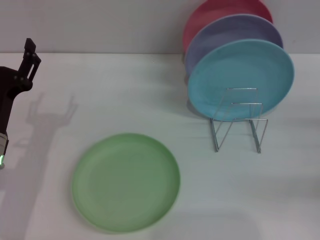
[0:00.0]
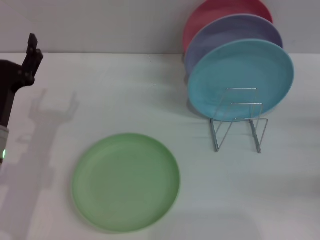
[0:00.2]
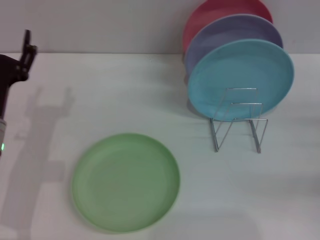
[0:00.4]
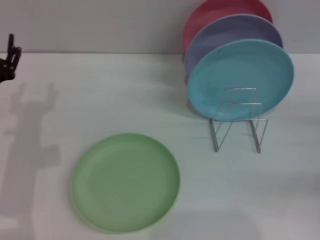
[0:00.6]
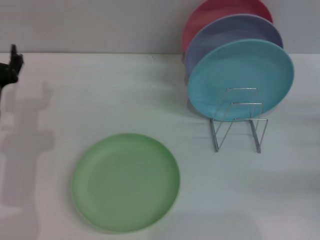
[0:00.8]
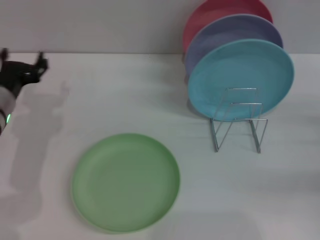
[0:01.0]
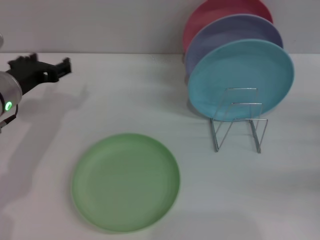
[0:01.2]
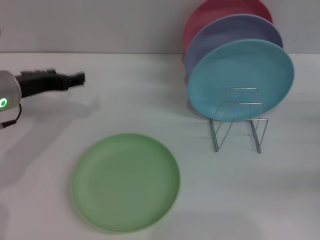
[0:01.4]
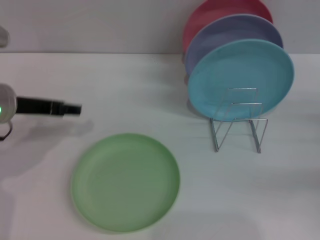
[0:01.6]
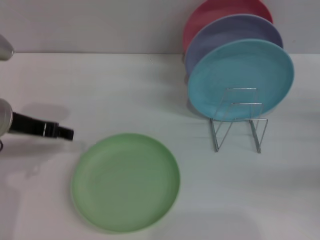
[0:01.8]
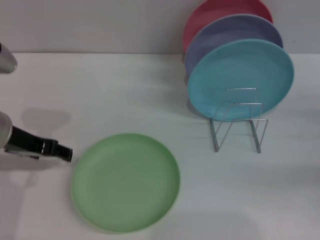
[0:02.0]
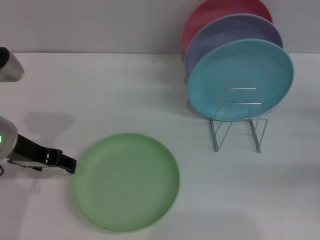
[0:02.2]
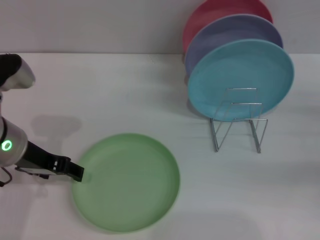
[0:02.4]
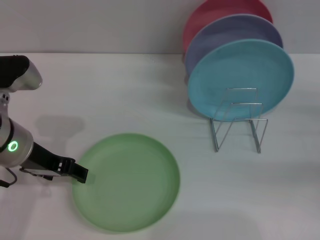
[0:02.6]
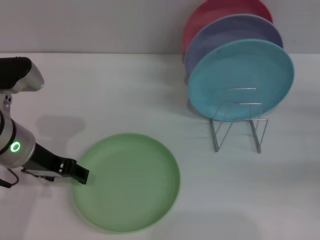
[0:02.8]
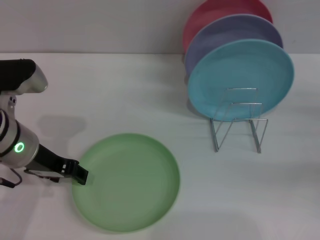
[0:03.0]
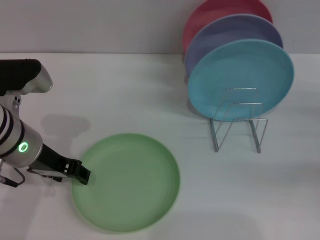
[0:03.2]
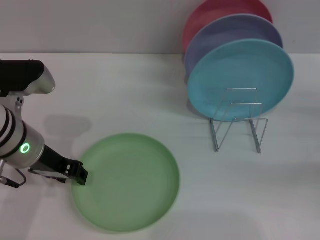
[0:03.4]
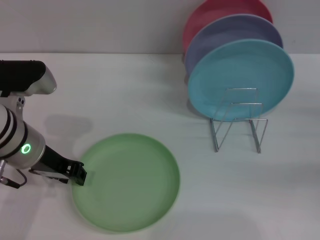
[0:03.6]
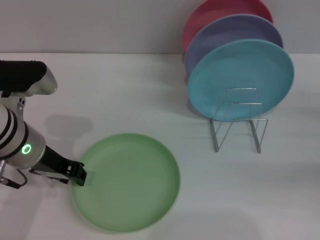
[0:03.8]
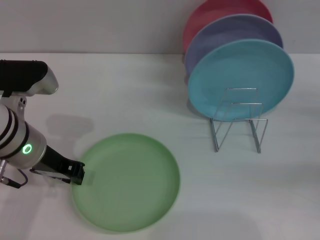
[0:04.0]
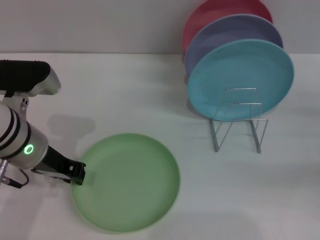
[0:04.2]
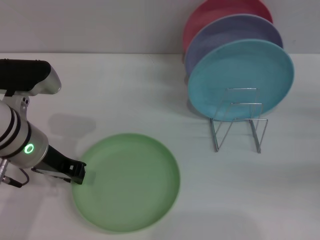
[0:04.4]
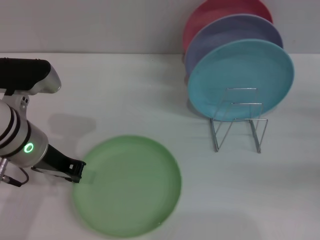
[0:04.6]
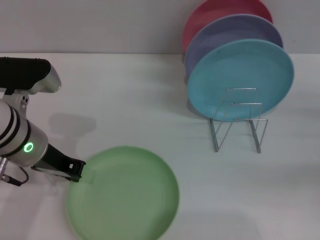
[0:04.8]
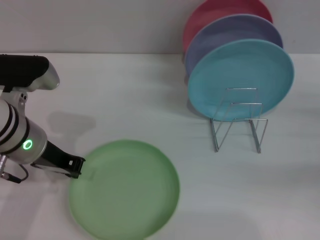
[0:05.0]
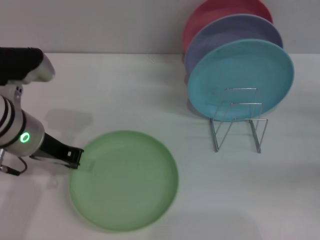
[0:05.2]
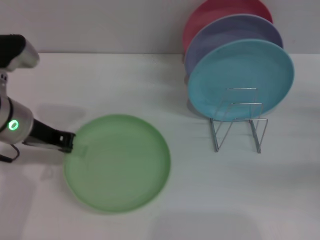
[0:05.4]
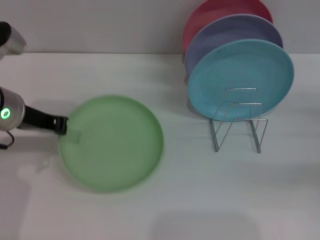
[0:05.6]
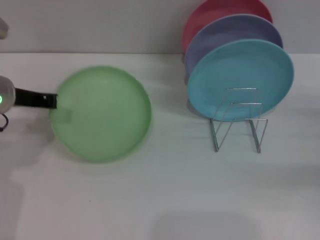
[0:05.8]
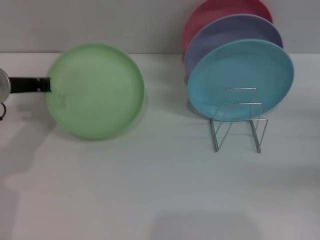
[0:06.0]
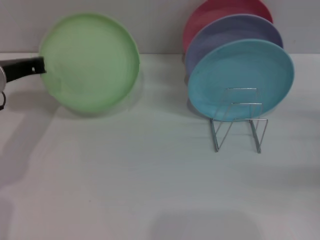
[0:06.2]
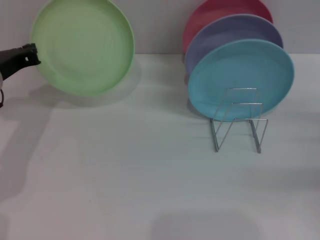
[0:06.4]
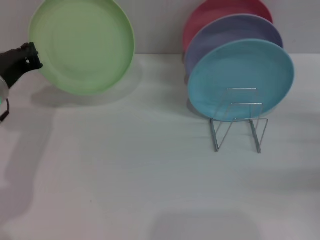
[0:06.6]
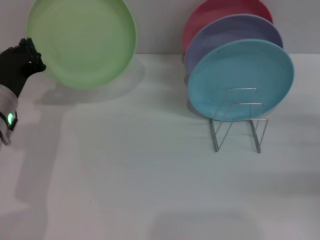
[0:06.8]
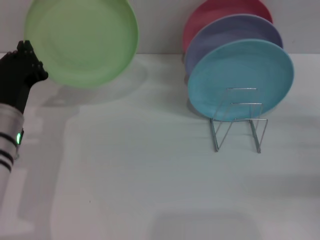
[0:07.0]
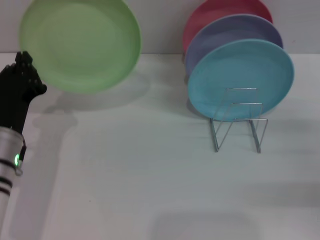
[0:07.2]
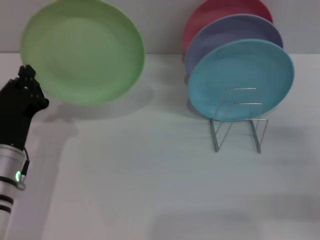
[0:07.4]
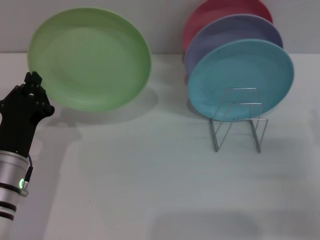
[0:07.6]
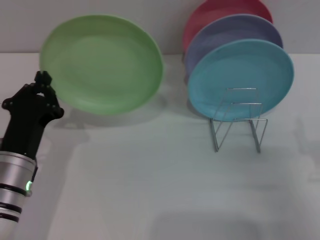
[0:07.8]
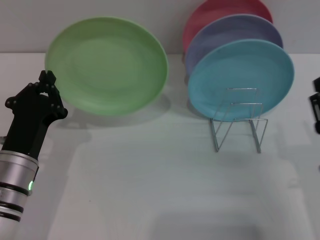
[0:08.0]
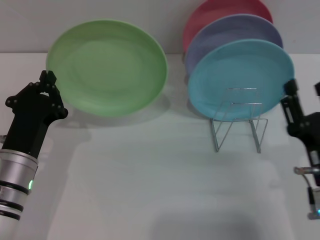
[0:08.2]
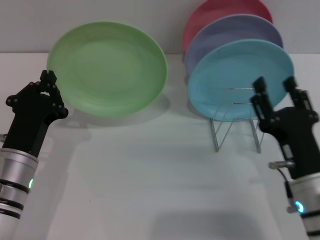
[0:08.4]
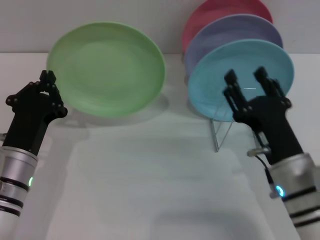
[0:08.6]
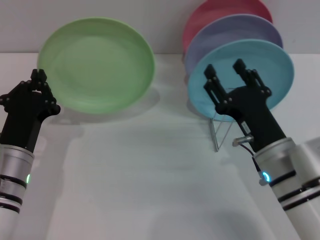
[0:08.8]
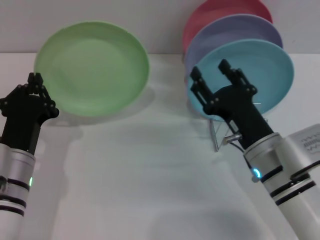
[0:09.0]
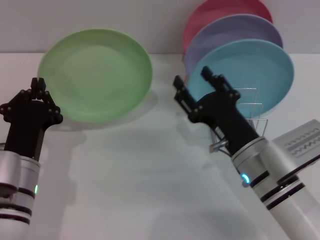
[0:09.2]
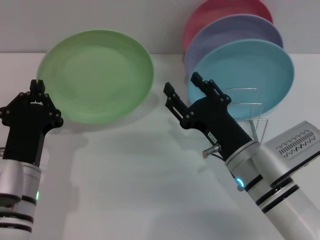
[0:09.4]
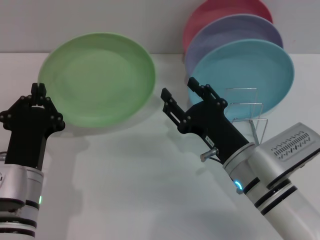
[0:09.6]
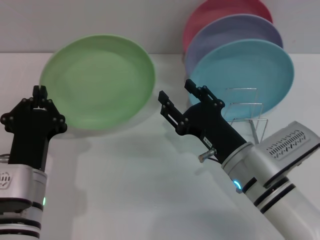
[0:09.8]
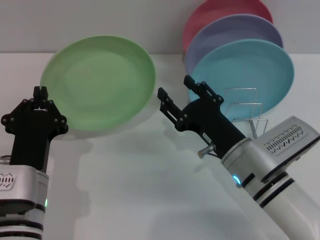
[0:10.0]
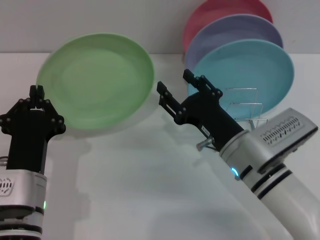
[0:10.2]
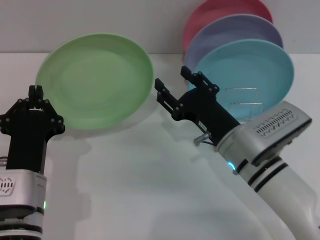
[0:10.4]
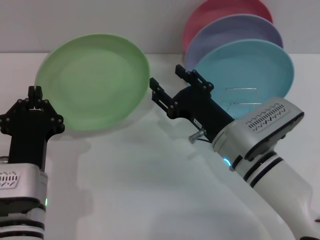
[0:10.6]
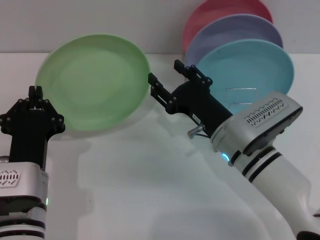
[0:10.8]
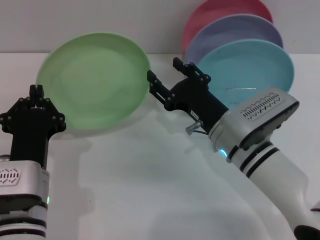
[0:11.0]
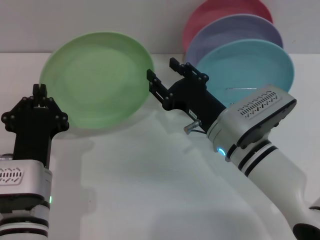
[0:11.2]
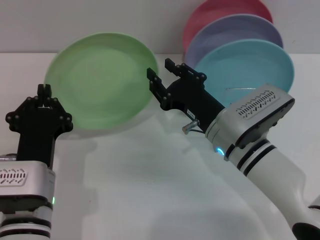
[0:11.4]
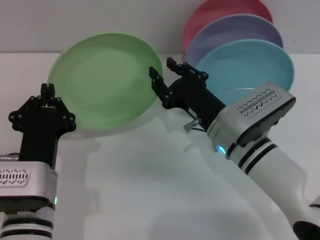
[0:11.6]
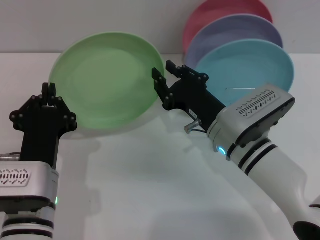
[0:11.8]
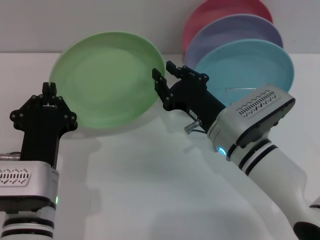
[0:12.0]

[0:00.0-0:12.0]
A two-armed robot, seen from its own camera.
Task of the whole recording: Grip the plate with one hand, pass it to the other, then set it on the shelf.
Step, 0:00.0 to 0:06.2: Pick up the plate with the left gripper.
0:00.0 to 0:01.6: The left gripper is displaced upward and forward by approximately 10 cm.
0:01.6 to 0:03.0: The left gripper changes place by roughly 5 cm.
0:03.0 to 0:04.4: The left gripper closes its fingers.
0:04.4 to 0:06.0: The left gripper is displaced to the left and forward by roughly 10 cm.
0:06.0 to 0:07.6: The left gripper moves backward and downward, some 15 cm, while the right gripper shifts about 10 cm to the left and backward.
0:07.6 to 0:09.0: The right gripper goes approximately 15 cm to the left.
0:09.0 to 0:10.4: The left gripper moves about 5 cm.
0:10.4 to 0:12.0: The right gripper closes.

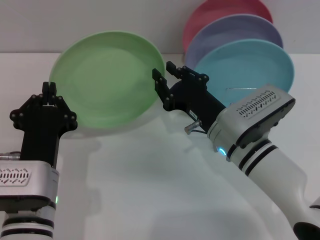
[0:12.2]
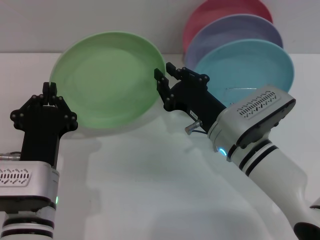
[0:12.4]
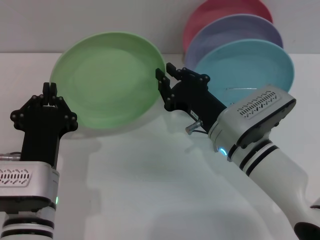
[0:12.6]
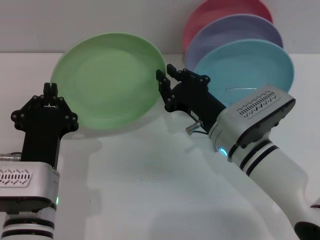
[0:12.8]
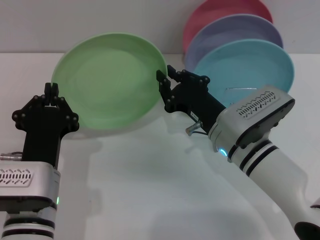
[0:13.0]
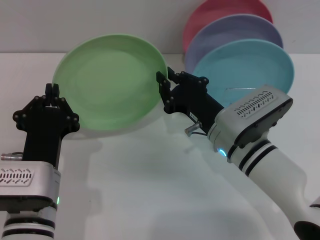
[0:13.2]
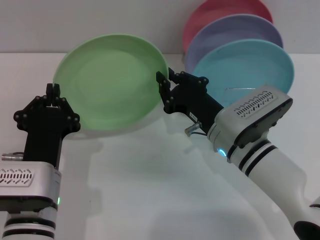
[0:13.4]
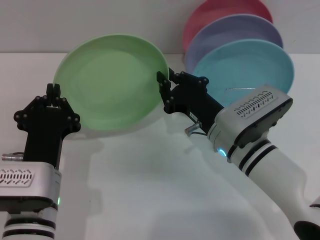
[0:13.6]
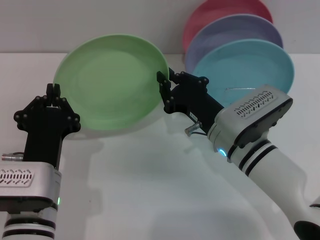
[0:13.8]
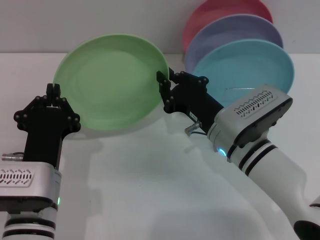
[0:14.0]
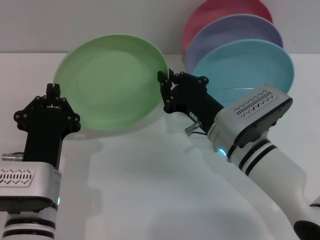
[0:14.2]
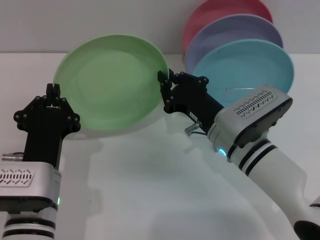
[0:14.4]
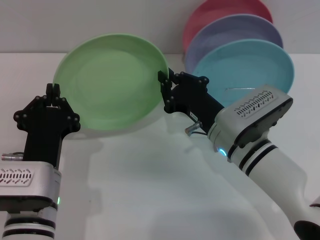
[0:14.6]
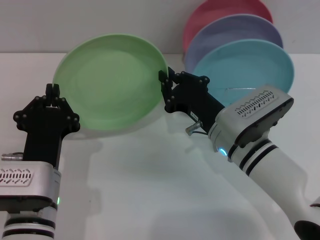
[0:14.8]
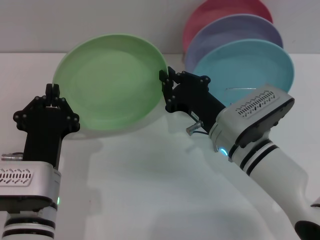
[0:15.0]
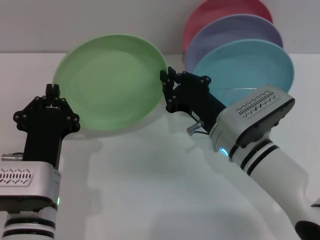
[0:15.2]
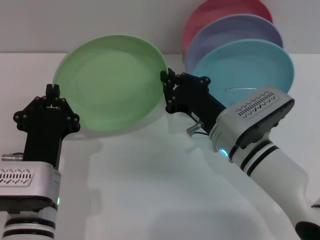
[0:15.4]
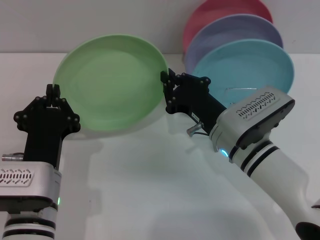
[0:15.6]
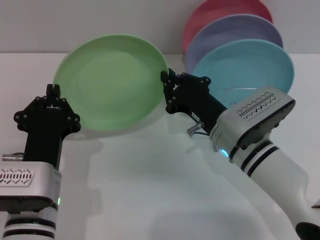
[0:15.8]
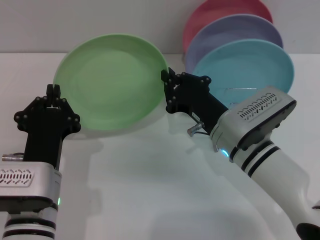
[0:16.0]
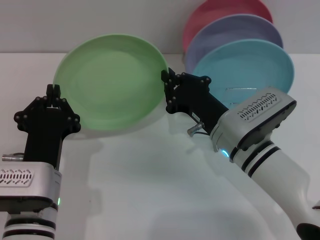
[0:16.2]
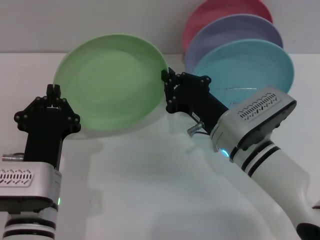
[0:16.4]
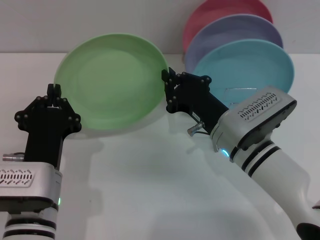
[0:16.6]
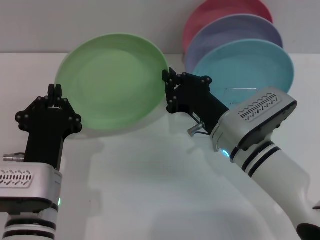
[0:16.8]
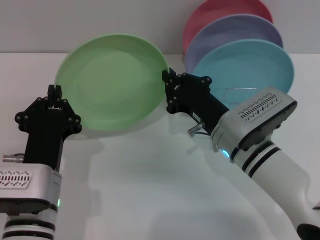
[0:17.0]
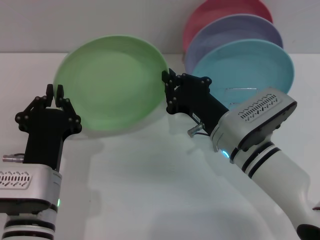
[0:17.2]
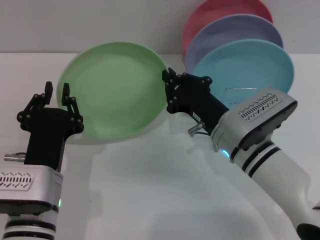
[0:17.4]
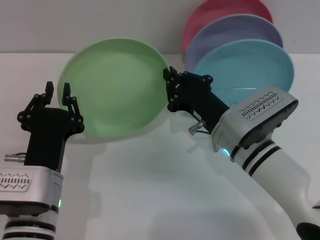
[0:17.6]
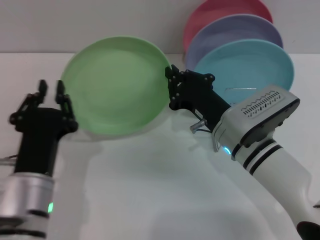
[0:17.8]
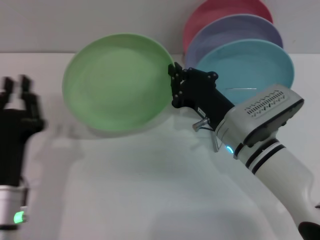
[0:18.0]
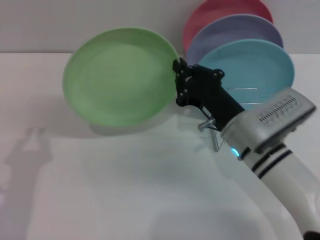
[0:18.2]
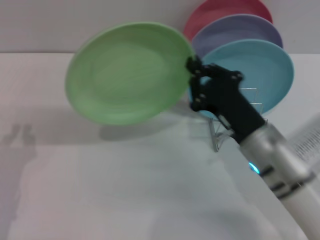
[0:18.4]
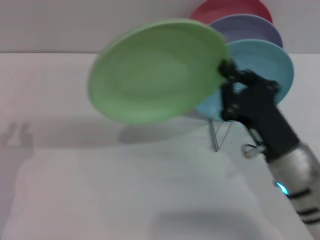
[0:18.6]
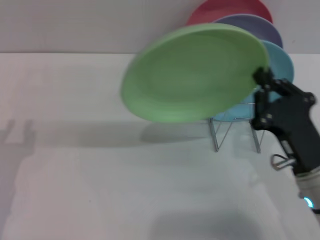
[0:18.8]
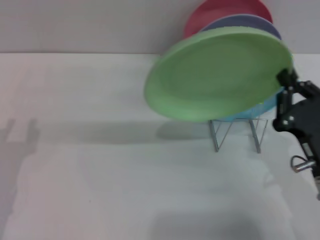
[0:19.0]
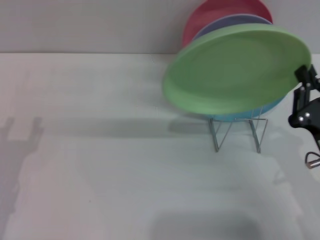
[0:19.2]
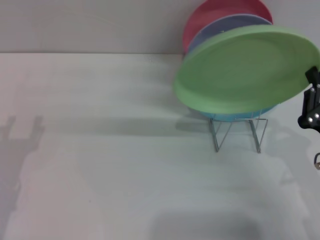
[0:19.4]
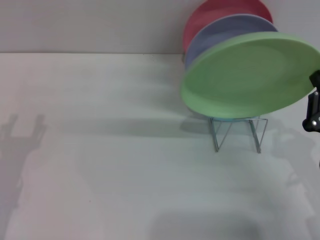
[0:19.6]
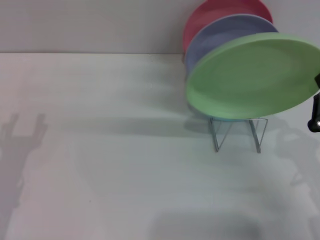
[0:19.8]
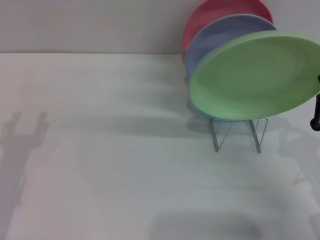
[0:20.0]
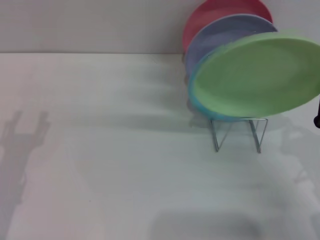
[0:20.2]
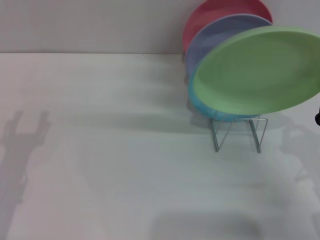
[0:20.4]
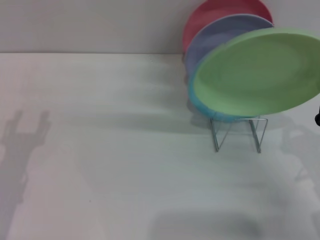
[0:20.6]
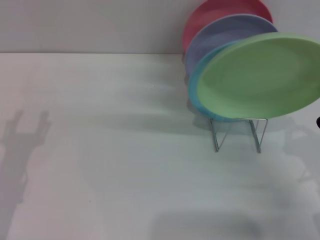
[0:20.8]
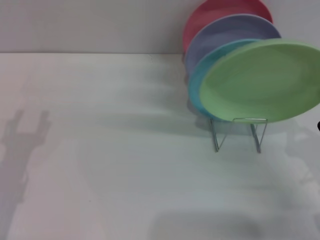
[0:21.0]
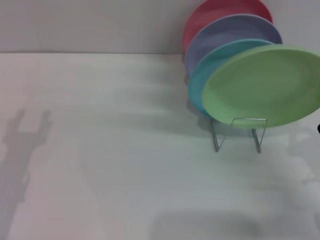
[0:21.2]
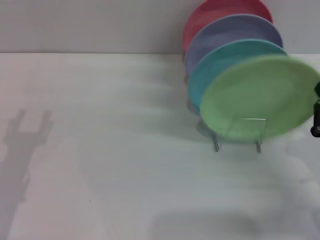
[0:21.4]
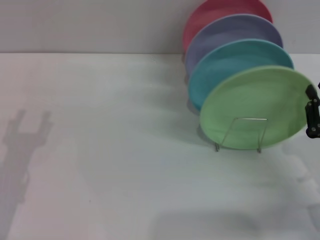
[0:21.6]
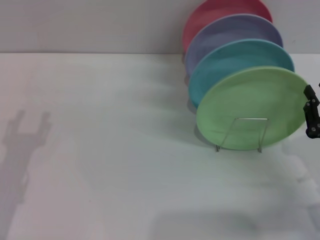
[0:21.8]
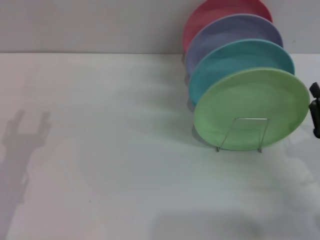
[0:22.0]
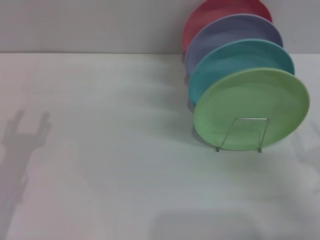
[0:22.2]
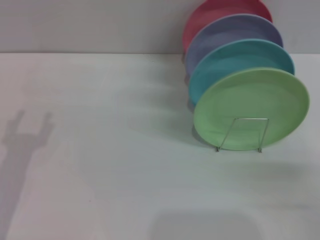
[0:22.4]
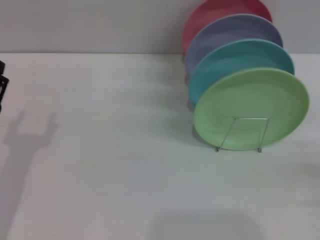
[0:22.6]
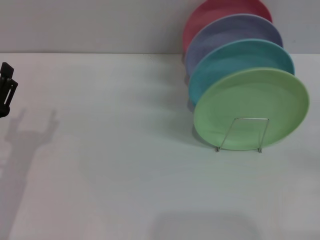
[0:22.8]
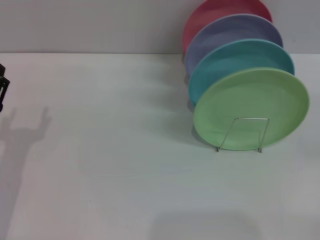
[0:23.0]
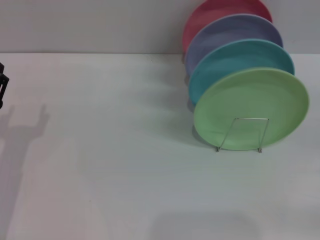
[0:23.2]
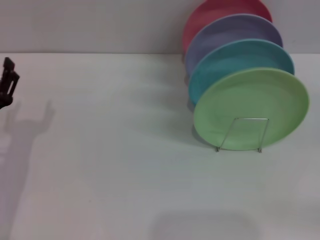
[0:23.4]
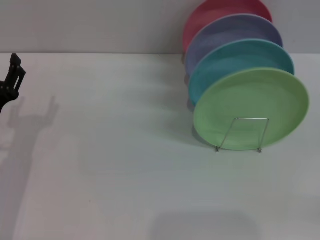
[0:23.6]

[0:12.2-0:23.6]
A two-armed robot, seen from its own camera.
Task of the whole recording: Grip the plate with one hand, pass it to the other, then set it on the shelf.
Step, 0:12.2 to 0:17.8: Pass the plate from the left gripper to the right gripper.
Step, 0:18.0 to 0:22.0: Place the plate on the shelf with the right gripper.
0:12.2 to 0:16.4: Neither gripper changes place.
0:16.4 to 0:17.8: The grippers make only small movements.
0:17.8 to 0:19.4: The left gripper heads to the left, covering roughly 10 cm, and opens up, while the right gripper moves to the right and backward, some 15 cm.
0:19.4 to 0:20.8: The grippers make only small movements.
0:20.8 to 0:22.2: The right gripper opens its fingers.
0:22.2 to 0:23.6: The left gripper goes about 5 cm forward.
